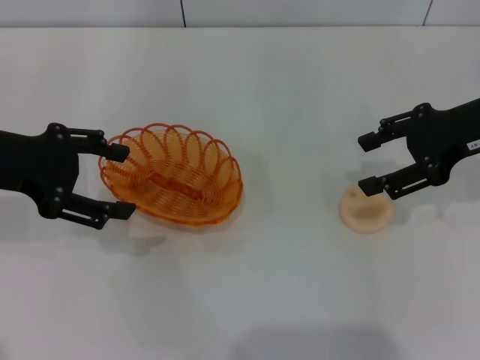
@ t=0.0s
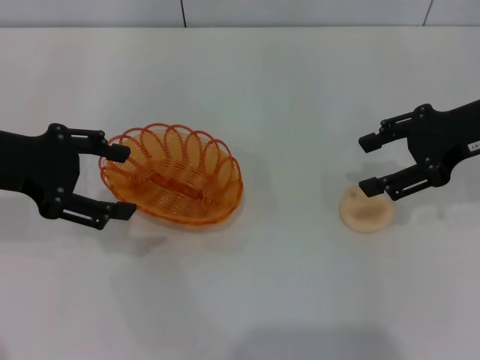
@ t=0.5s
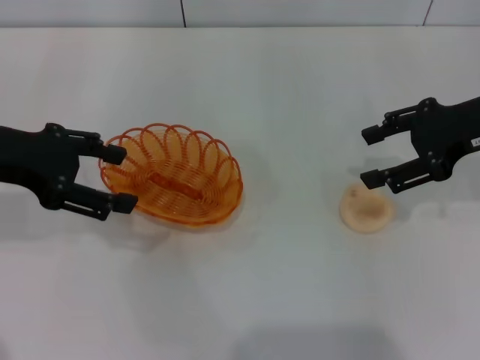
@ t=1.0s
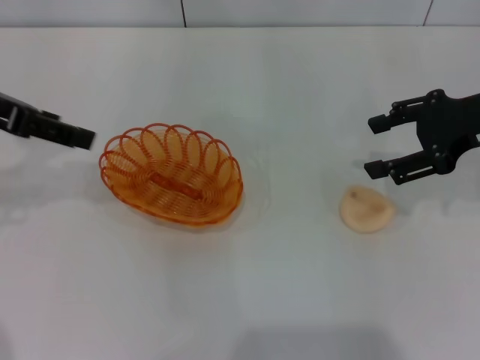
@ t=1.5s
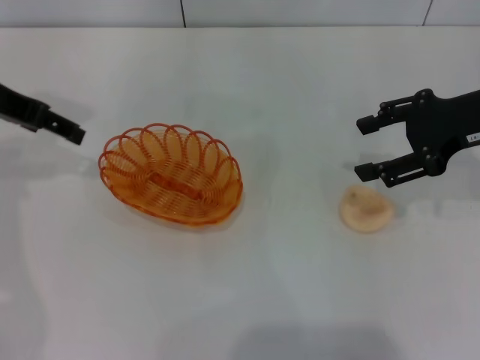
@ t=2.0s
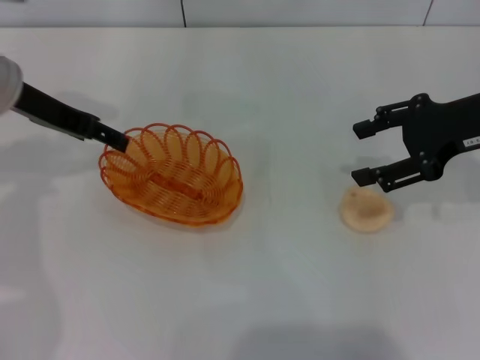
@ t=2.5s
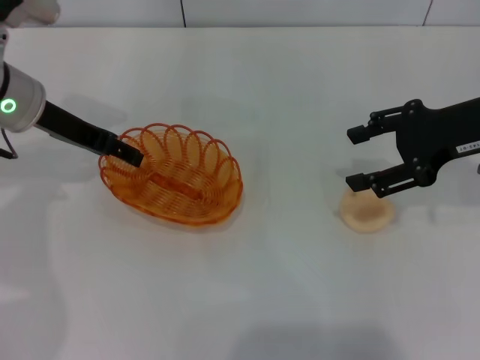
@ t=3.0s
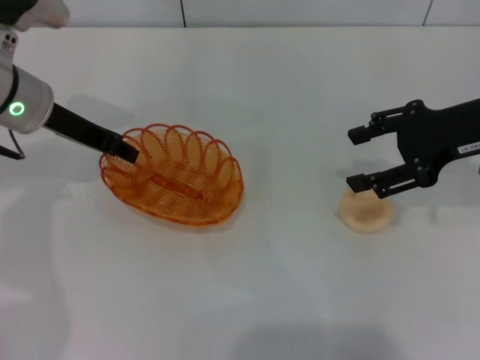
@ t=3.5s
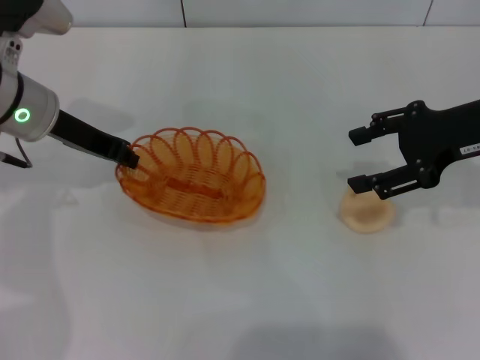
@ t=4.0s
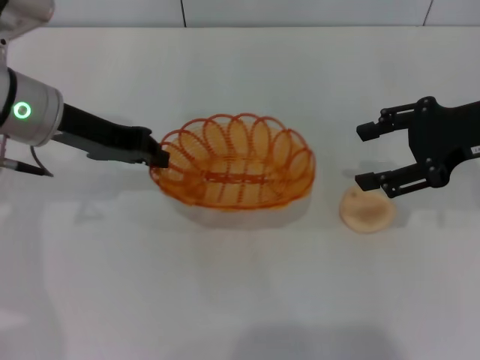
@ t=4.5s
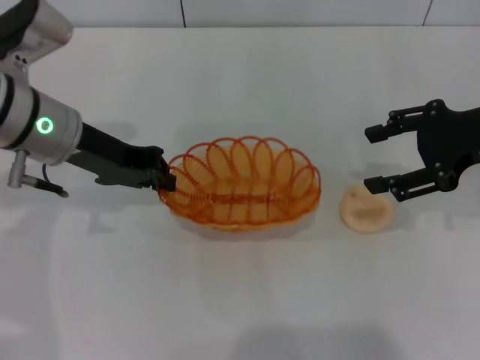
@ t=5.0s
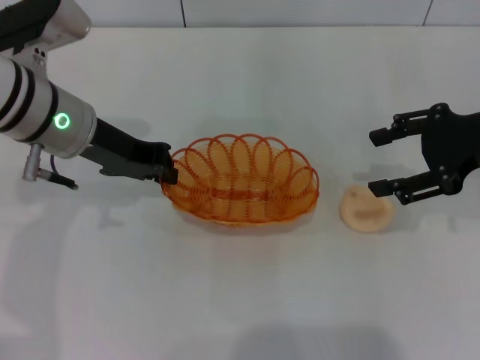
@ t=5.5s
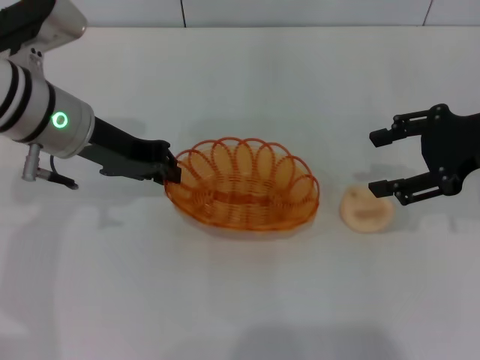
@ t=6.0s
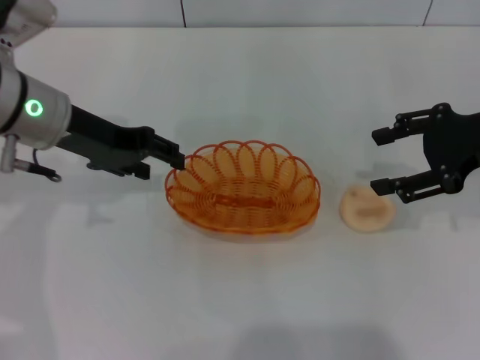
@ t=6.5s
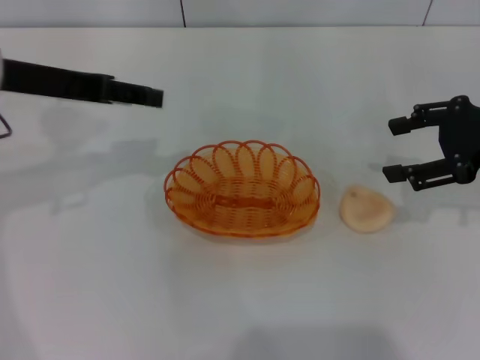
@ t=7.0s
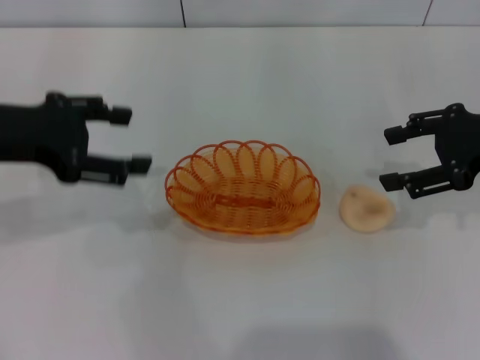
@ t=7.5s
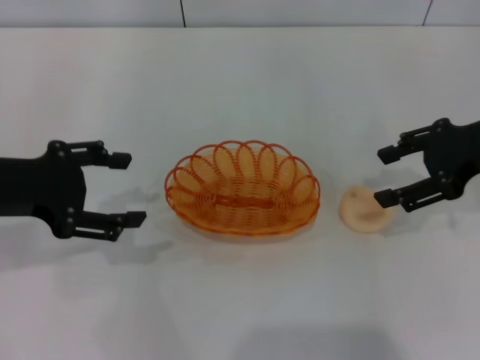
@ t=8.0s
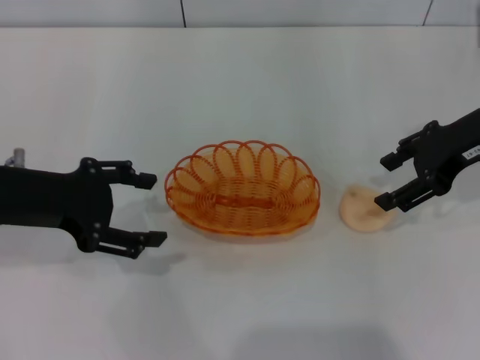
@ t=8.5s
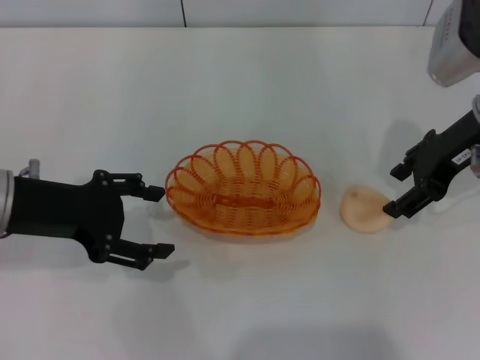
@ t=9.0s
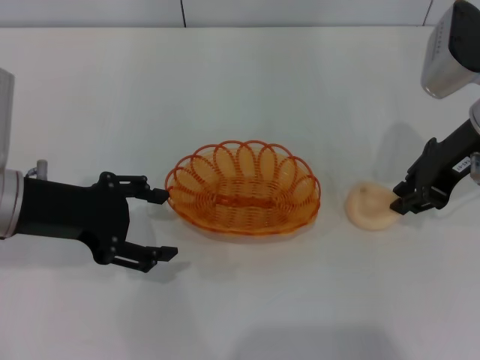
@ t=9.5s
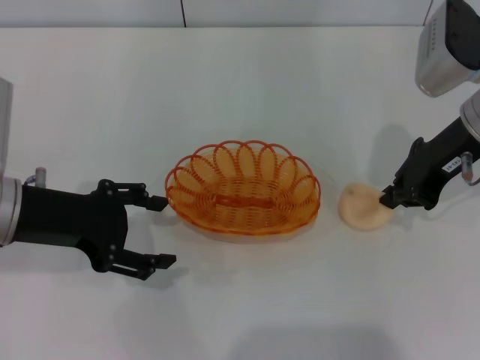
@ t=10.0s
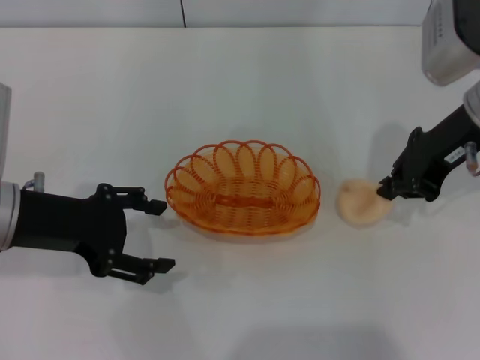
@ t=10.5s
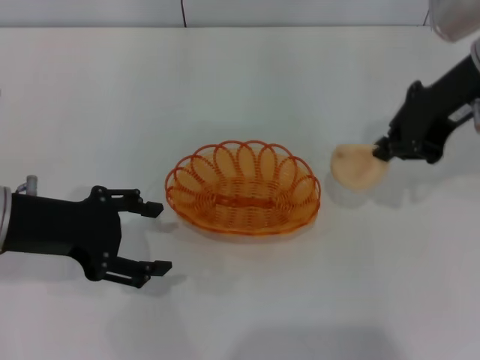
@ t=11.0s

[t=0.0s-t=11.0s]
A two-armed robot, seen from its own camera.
Step, t=0.0s to t=4.5s: Pick up the basket with the left gripper.
Step, t=5.0s to t=6.5s: Place the basket in the center of view with the left gripper.
Step, t=7.0s to t=10.5s: Pick up the egg yolk pastry with the right gripper.
t=0.0s to t=2.0s: The left gripper shifts approximately 5 cm forward.
t=2.0s to t=3.5s: The left gripper is displaced downward by about 5 cm, and closes.
t=3.5s to t=5.5s: The left gripper changes place by roughly 5 cm, and closes up.
t=5.5s to t=7.5s: The left gripper goes roughly 10 cm to the left and backward, and opens up.
t=7.5s to t=9.0s: The left gripper heads downward, covering approximately 5 cm. The right gripper heads to the left, covering approximately 5 cm.
t=9.0s to t=11.0s: The right gripper moves upward, some 5 cm, and closes.

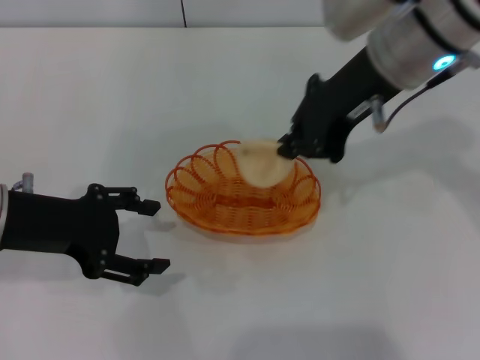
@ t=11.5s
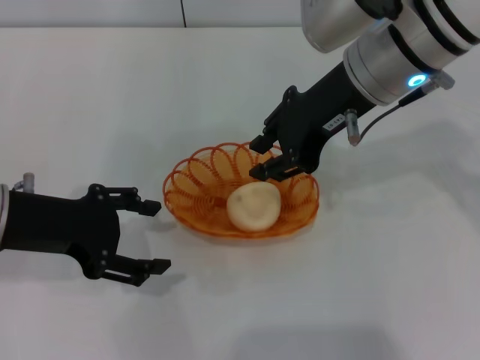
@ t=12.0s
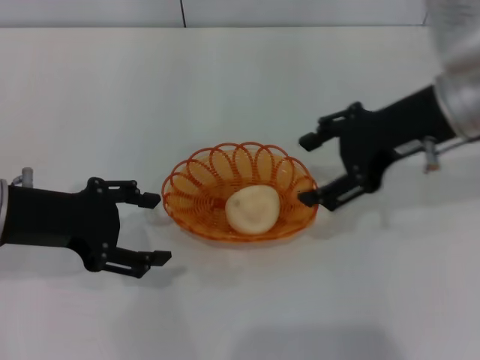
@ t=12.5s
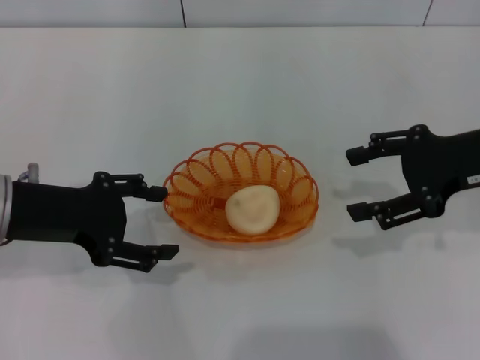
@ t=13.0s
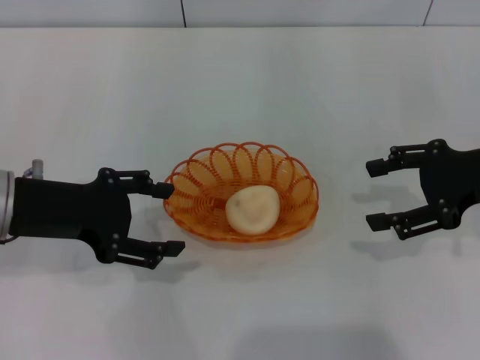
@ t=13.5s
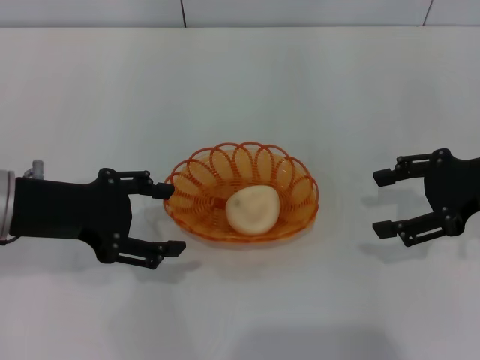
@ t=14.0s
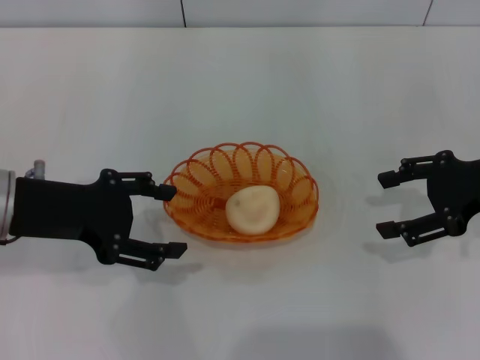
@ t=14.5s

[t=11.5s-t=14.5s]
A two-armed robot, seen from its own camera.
Step, t=11.5s to t=12.5s: Place the egg yolk pastry into the basket with the right gripper.
t=11.5s to t=13.0s: The right gripper goes roughly 15 cm to the right and downward, and opens.
t=13.0s to t=14.5s: There are only small adjustments of the grippers.
